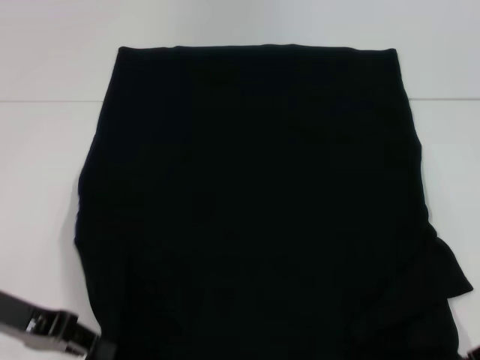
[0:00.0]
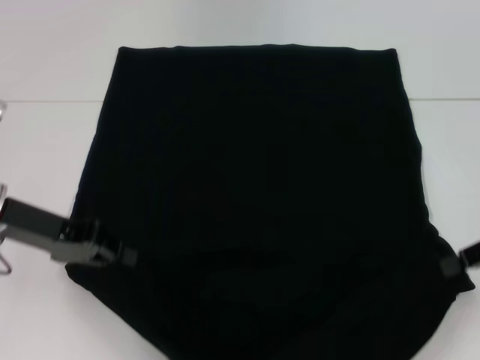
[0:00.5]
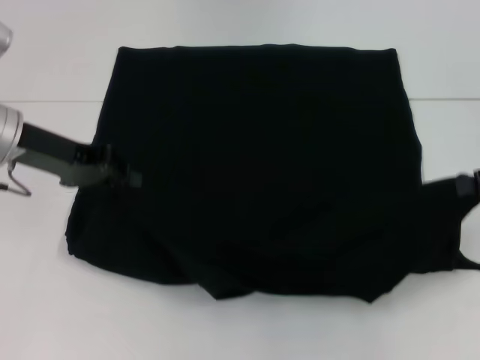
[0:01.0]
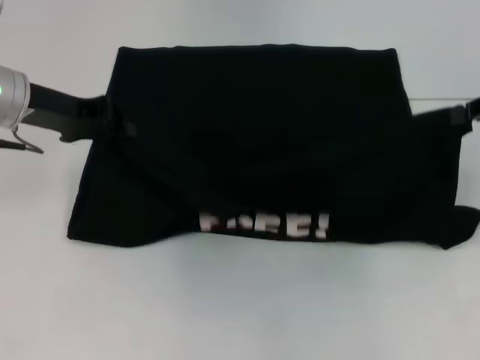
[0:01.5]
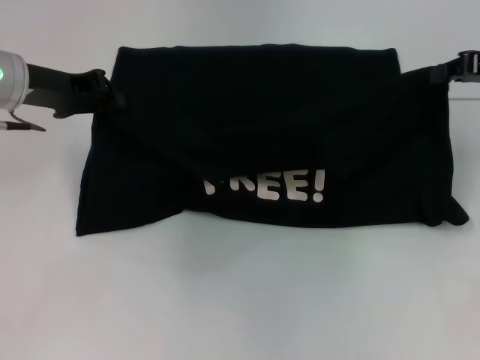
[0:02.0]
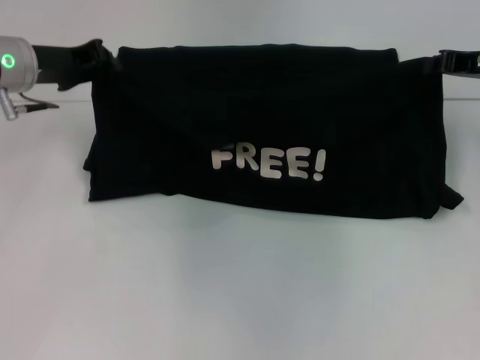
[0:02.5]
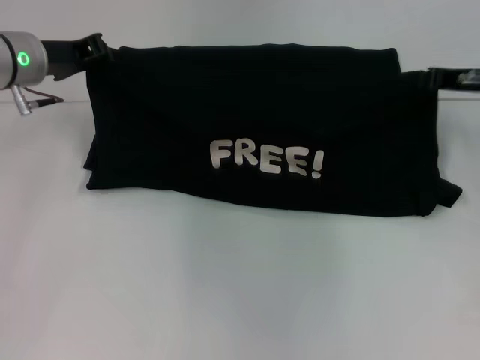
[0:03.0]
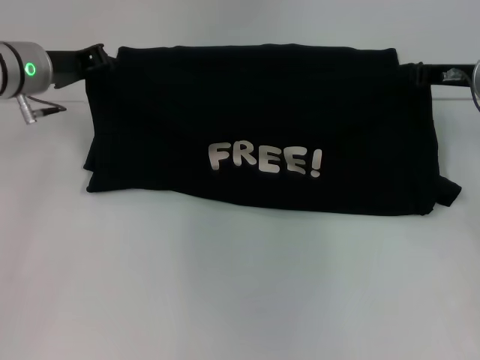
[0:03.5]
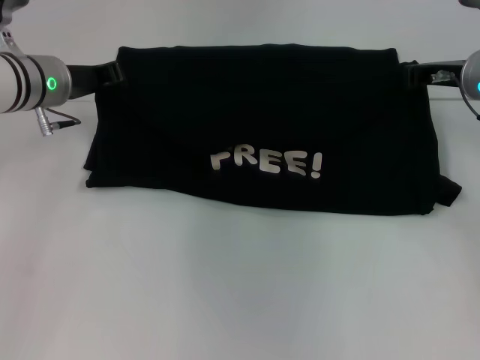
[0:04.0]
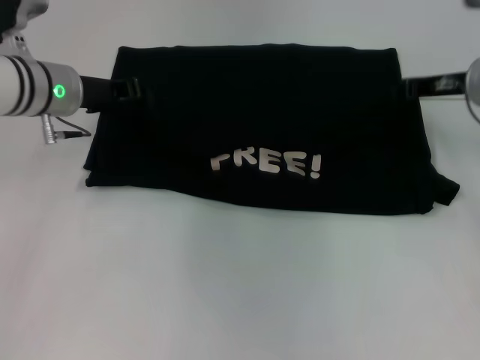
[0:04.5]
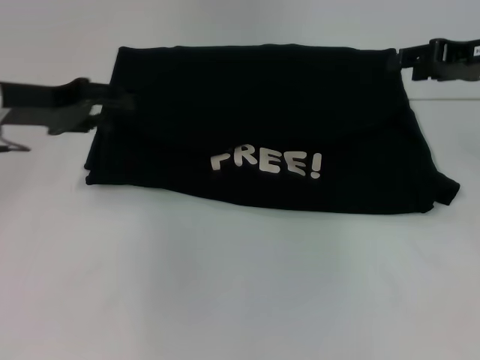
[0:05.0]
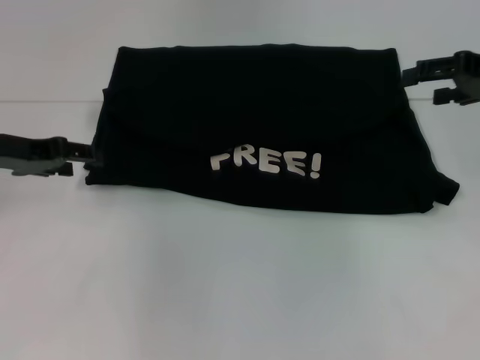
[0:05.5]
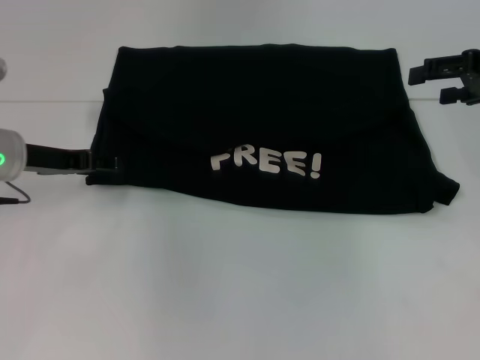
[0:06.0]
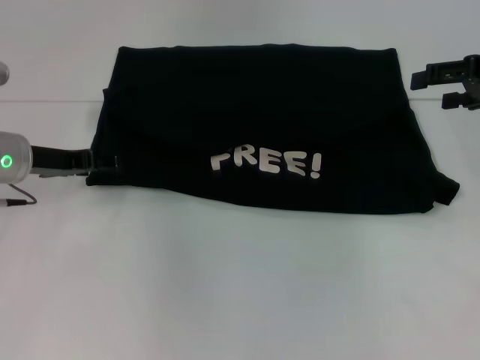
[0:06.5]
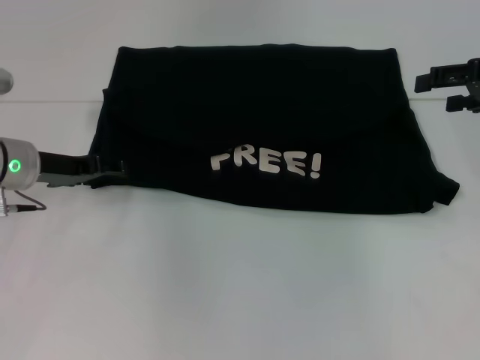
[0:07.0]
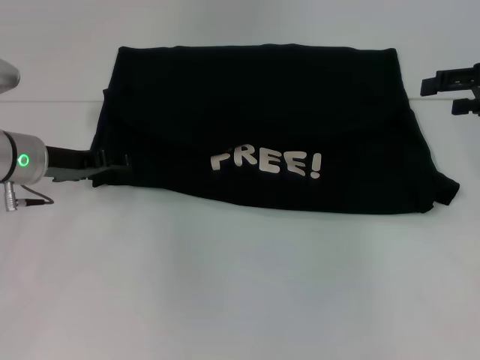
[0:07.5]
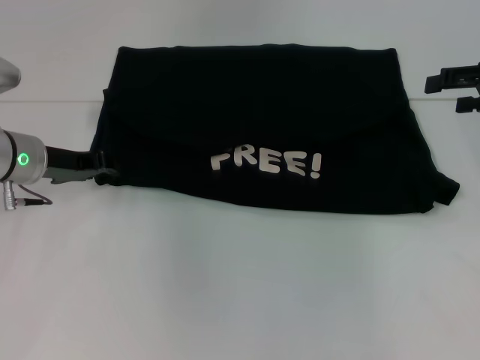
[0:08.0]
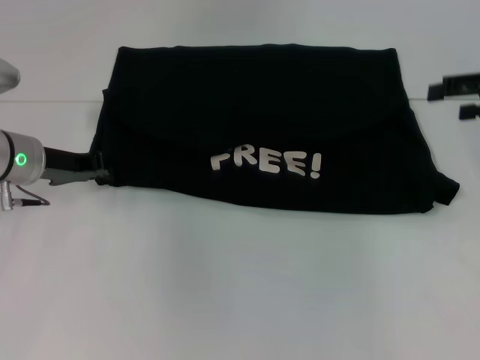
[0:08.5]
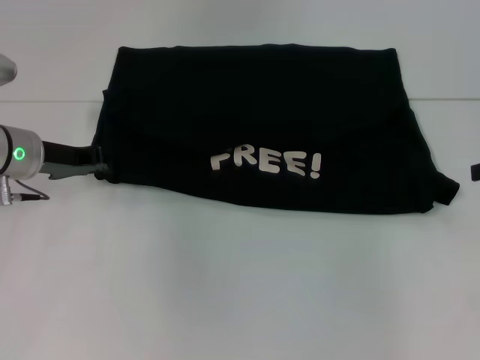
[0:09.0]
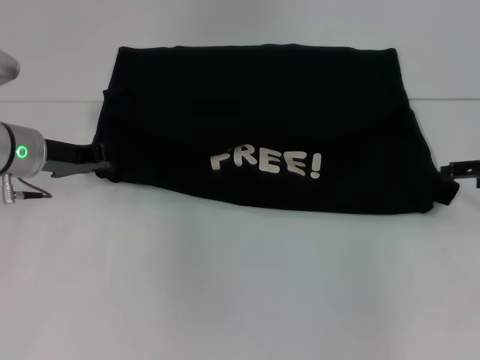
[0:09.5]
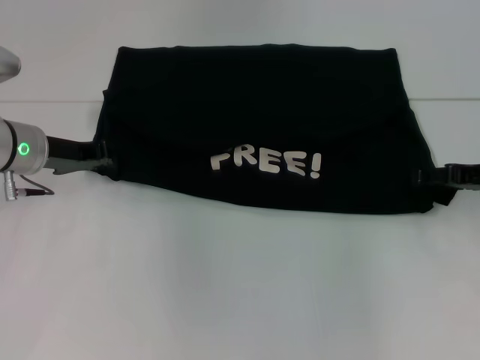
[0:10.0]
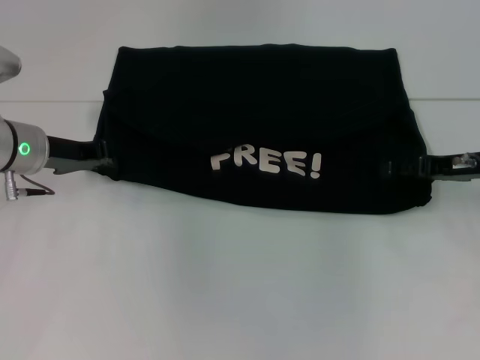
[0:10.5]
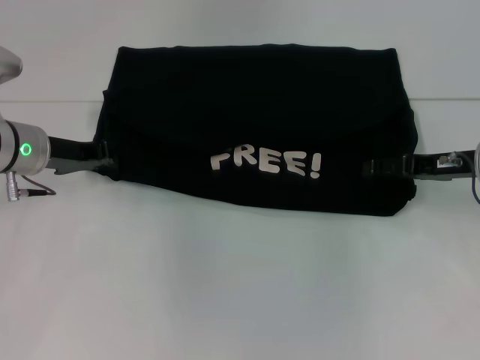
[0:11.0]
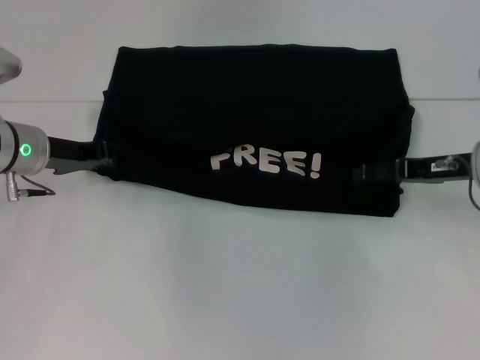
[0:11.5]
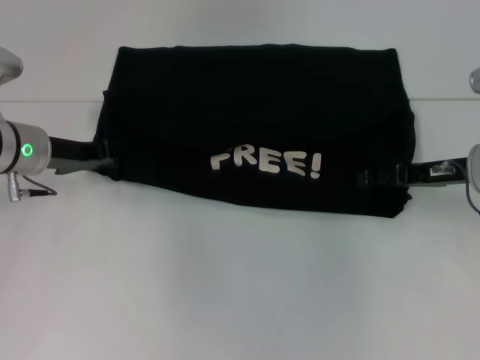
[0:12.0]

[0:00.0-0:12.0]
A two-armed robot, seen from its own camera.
Step, 0.0 to 5.0 s: Fold the clothes with your left hand.
Step, 0.0 to 5.0 s: Fold the clothes with your right hand.
0.0 to 2.0 s: Both grippers move forward and upward, roughly 20 cm.
2.0 to 4.0 s: The left gripper changes place by about 5 cm, while the right gripper moves downward and to the left, roughly 10 cm.
4.0 to 6.0 s: The left gripper heads backward, covering approximately 5 cm, and opens its fingers. Meanwhile the right gripper is displaced upward and to the right by approximately 10 cm, and opens.
6.0 to 8.0 s: The grippers stay close to where they were, moving slightly.
8.0 to 10.0 s: The right gripper moves downward, about 10 cm, while the left gripper closes up.
10.0 to 12.0 s: There are only small adjustments of the grippers.

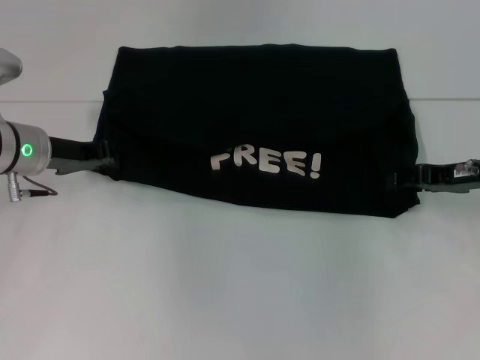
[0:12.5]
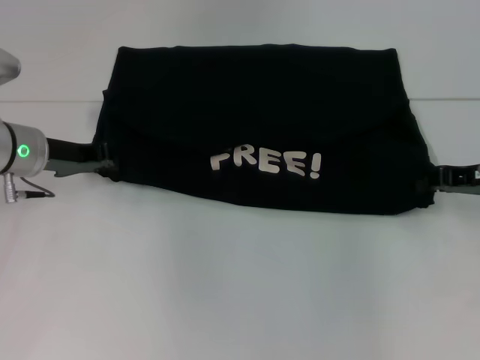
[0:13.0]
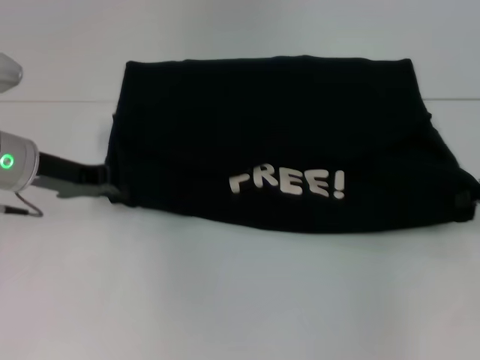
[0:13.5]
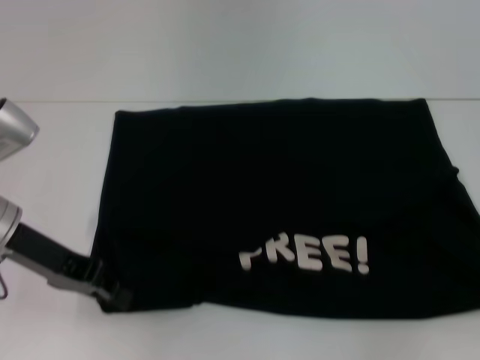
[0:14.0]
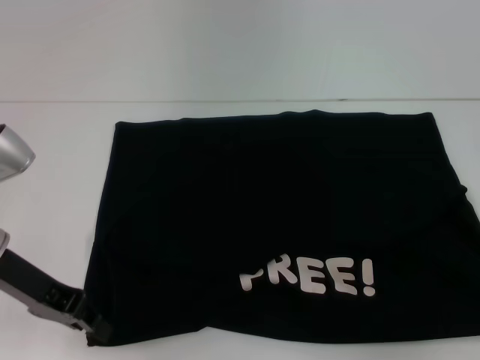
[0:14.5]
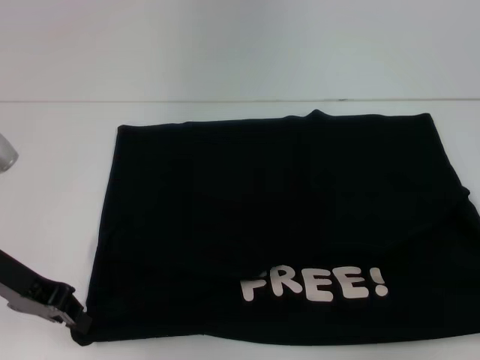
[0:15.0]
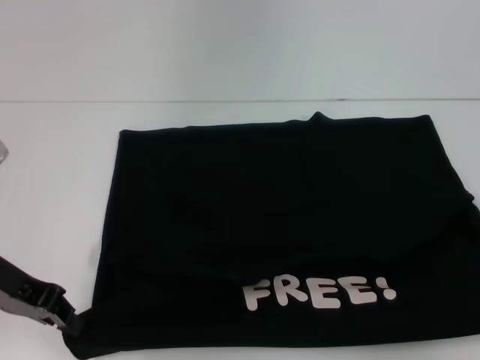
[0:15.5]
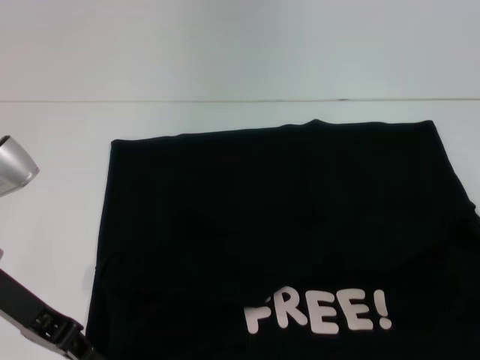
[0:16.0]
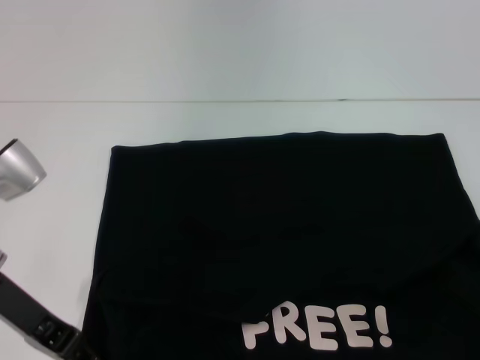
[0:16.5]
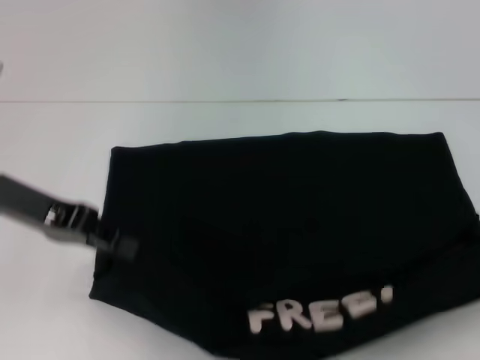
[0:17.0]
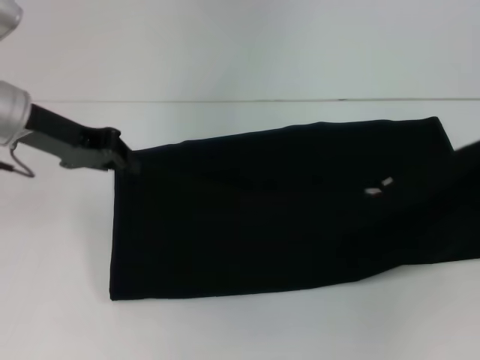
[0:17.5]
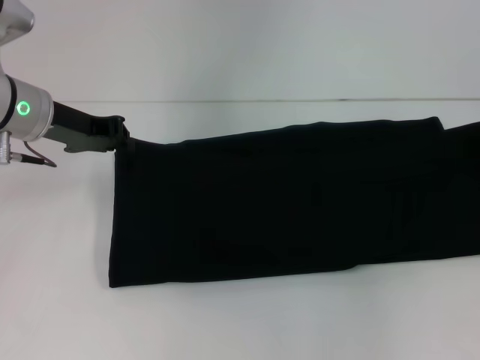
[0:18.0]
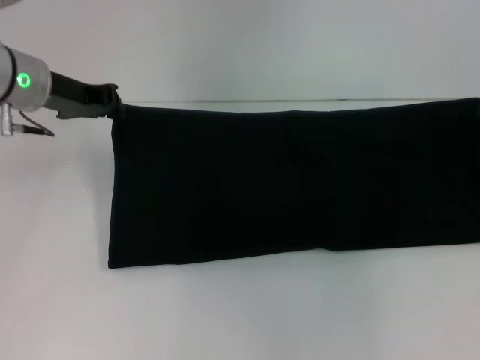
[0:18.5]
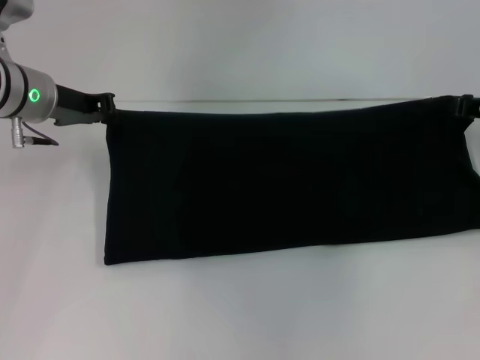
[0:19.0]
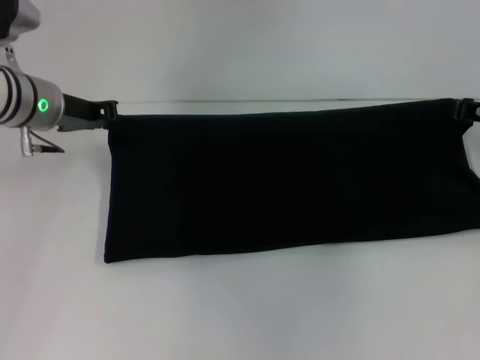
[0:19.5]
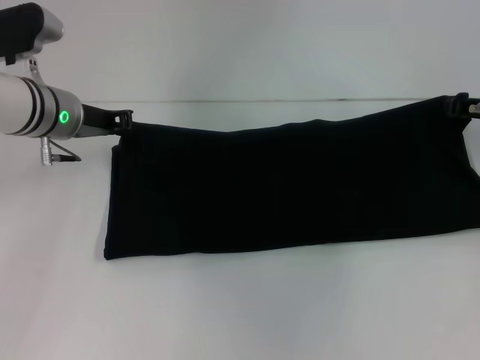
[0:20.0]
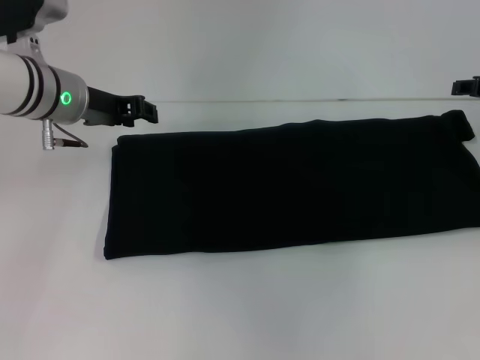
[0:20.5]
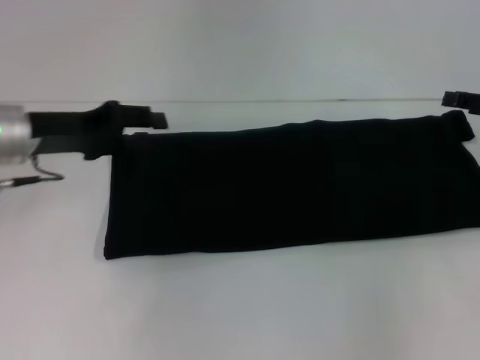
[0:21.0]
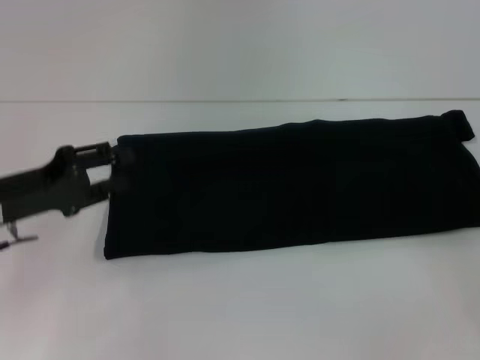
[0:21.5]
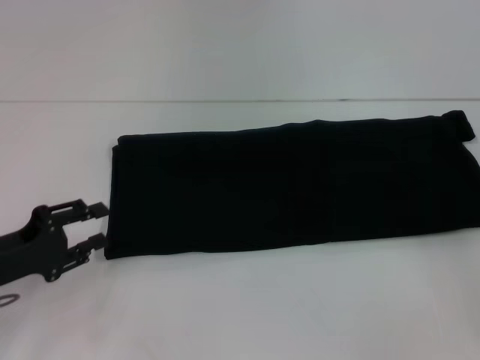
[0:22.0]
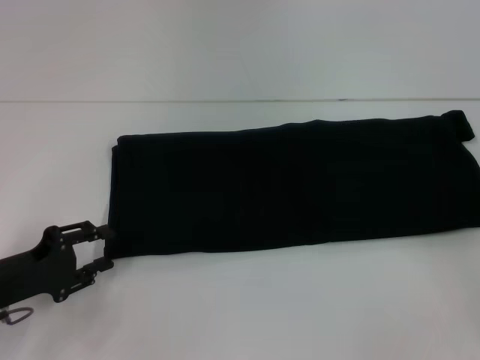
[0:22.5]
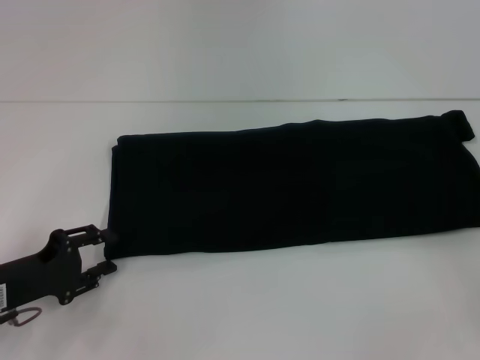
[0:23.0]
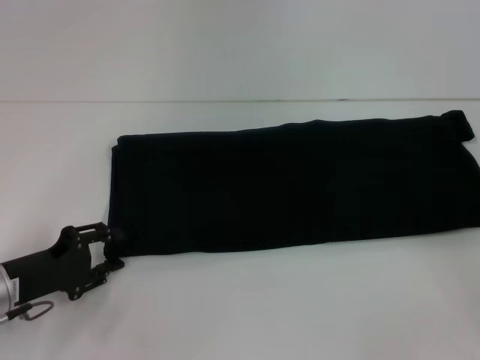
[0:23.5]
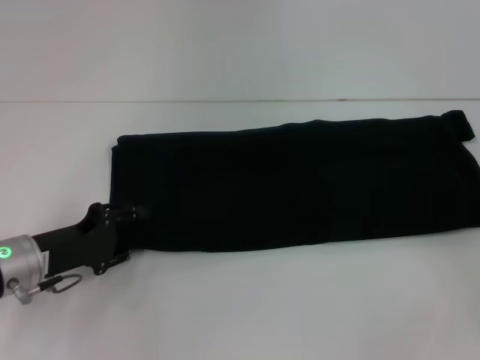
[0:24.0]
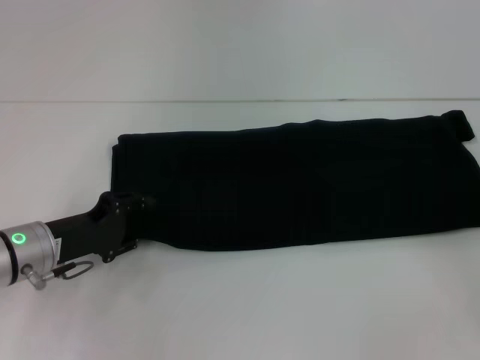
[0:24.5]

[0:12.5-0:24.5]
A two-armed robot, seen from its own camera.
Step, 12.5 to 14.5 s: Pull the clothes with your left hand.
Step, 12.5 to 14.5 s: Pull the clothes with your right hand.
Step, 15.0 to 20.5 s: Fold the clothes with your right hand.
12.5 to 14.5 s: The left gripper heads backward, covering approximately 10 cm; the right gripper heads to the right and backward, covering roughly 15 cm, and closes its fingers.
14.5 to 16.5 s: There are only small adjustments of the grippers.
16.5 to 18.5 s: The two grippers go some 15 cm forward.
18.5 to 20.5 s: The right gripper opens up.
20.5 to 22.5 s: The right gripper shifts about 15 cm backward, and opens its fingers. The left gripper heads backward, downward and to the left, covering some 25 cm.
22.5 to 24.5 s: The left gripper heads forward and to the right, covering about 10 cm.

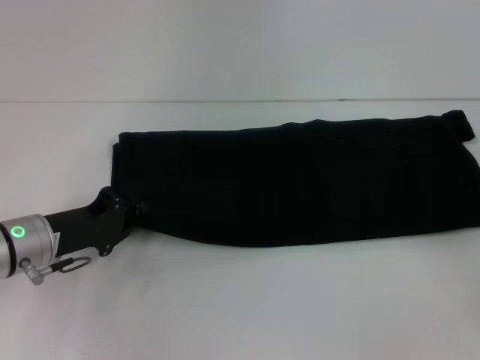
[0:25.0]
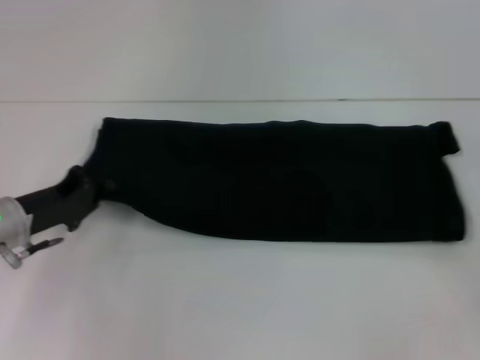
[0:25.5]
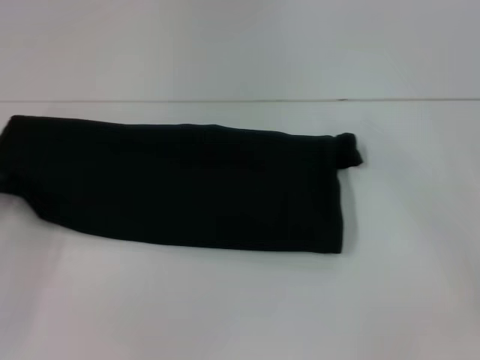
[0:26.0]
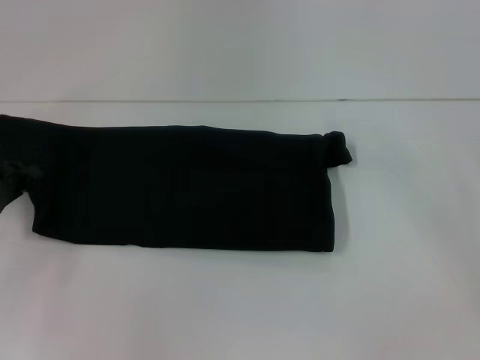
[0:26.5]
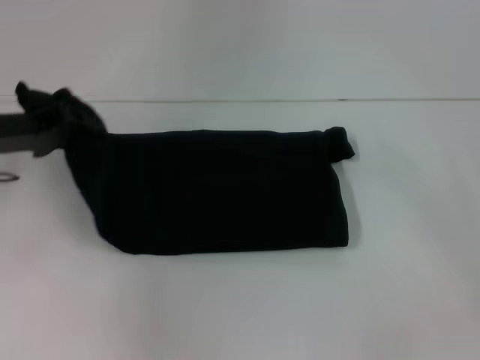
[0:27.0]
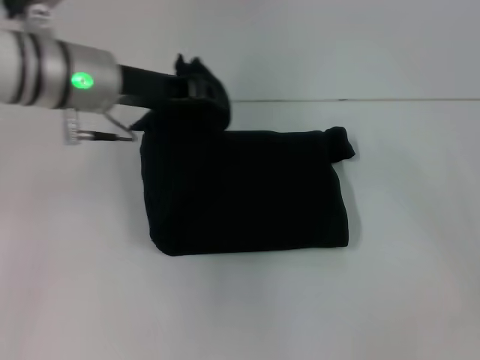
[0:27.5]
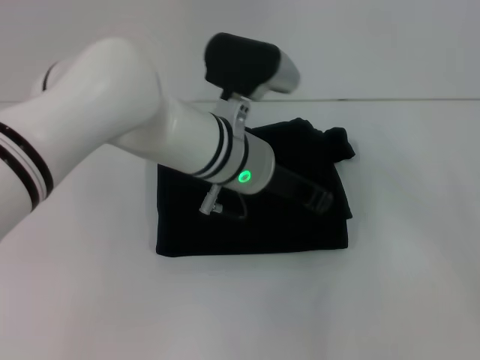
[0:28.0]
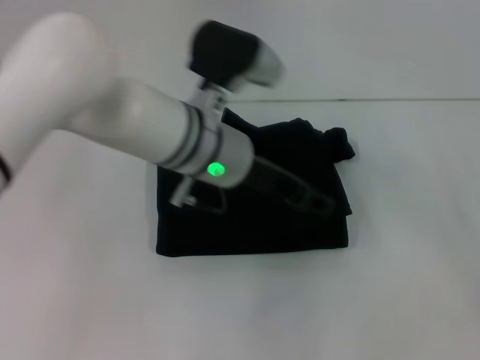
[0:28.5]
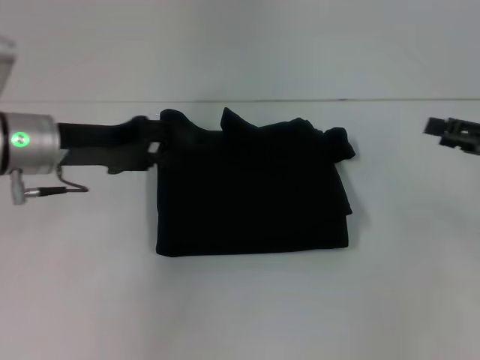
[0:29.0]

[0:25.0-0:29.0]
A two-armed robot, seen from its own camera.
Step, 25.0 to 28.5 s: Fold the clothes with your left hand.
25.0 to 27.0 s: The left gripper travels upward by about 10 cm.
27.0 to 29.0 s: The right gripper heads forward, covering approximately 5 cm. The left gripper travels to the right and back again, roughly 25 cm each way, and opens.
